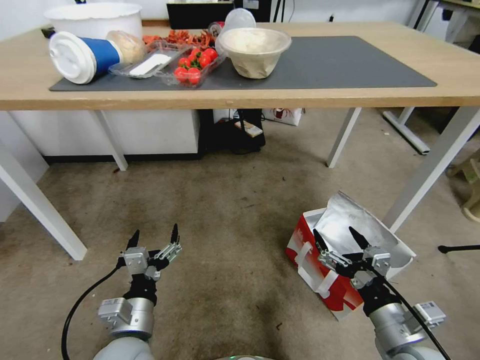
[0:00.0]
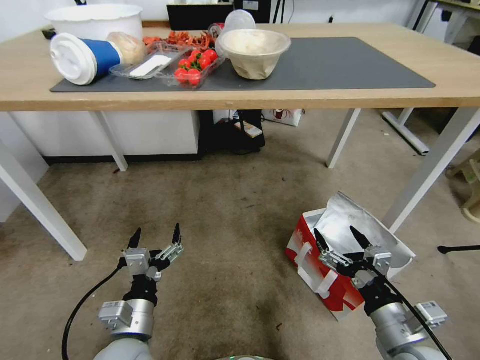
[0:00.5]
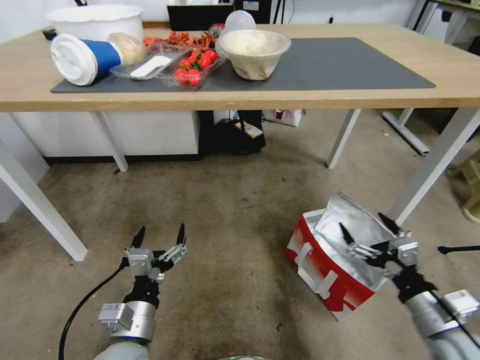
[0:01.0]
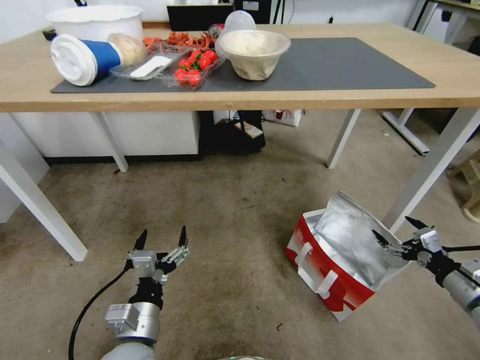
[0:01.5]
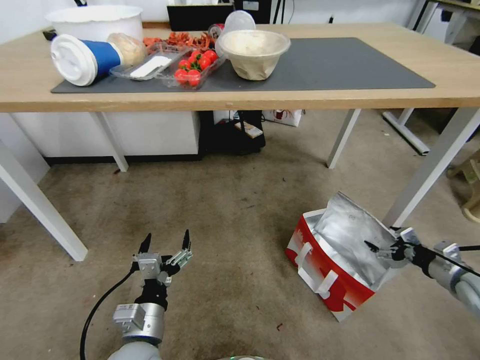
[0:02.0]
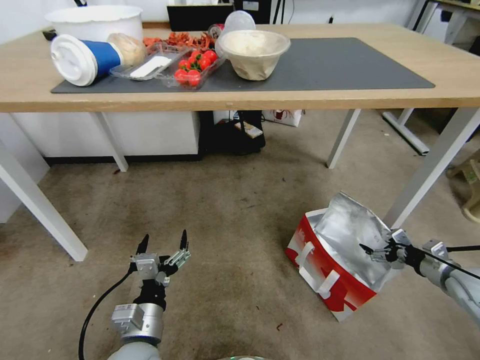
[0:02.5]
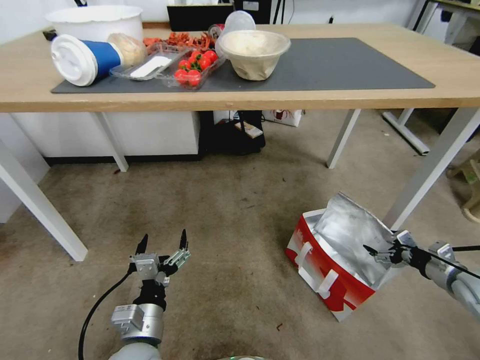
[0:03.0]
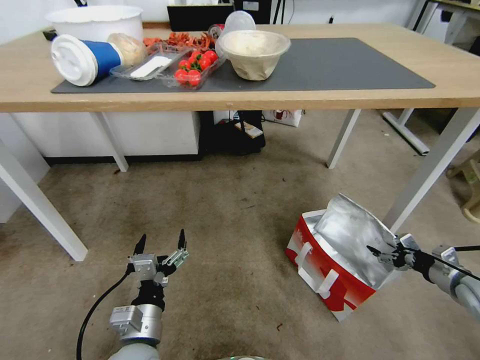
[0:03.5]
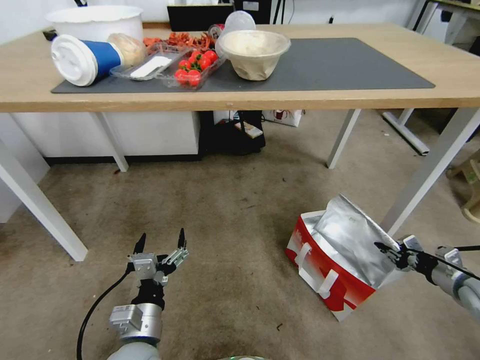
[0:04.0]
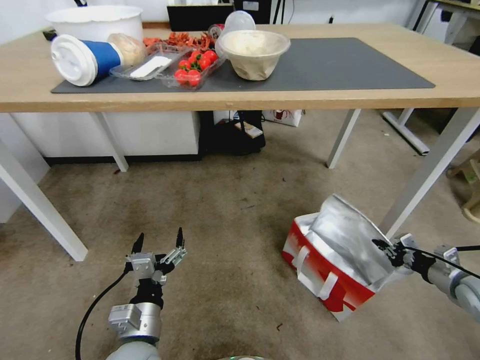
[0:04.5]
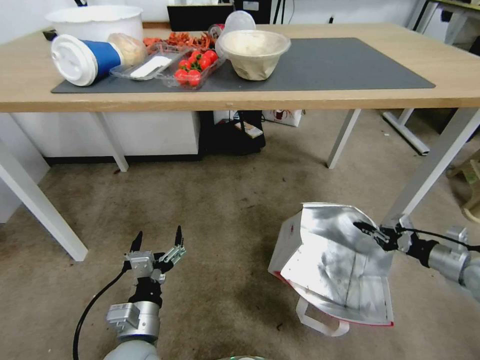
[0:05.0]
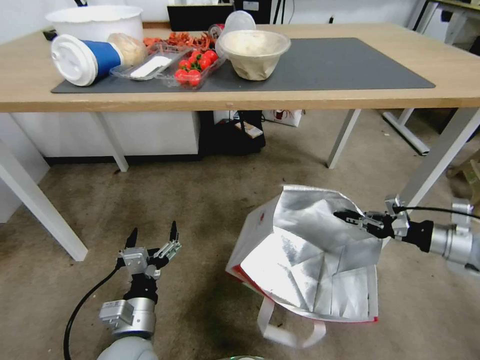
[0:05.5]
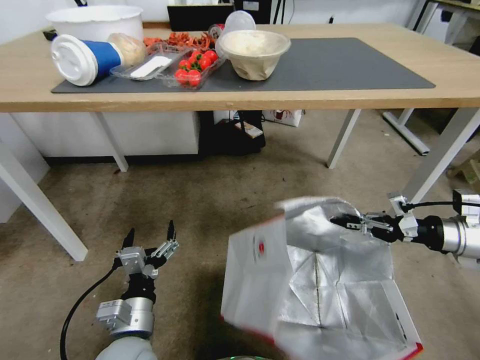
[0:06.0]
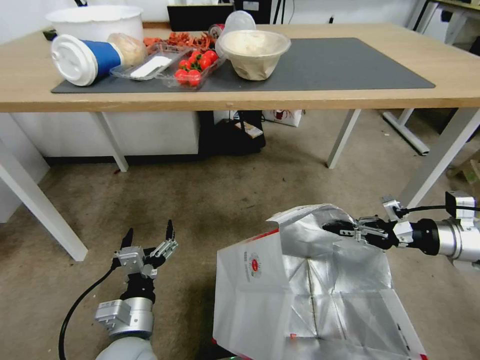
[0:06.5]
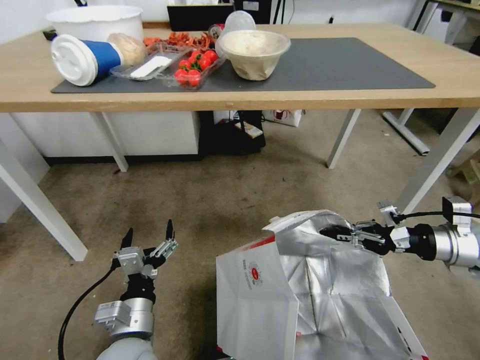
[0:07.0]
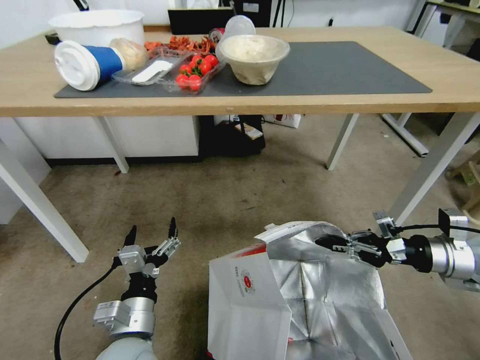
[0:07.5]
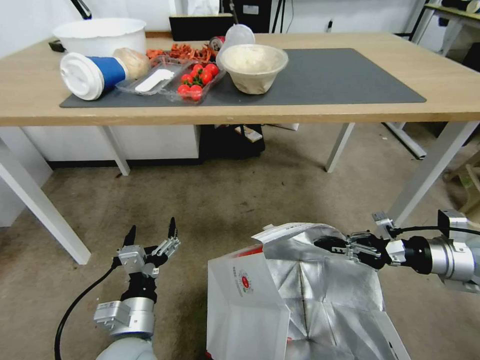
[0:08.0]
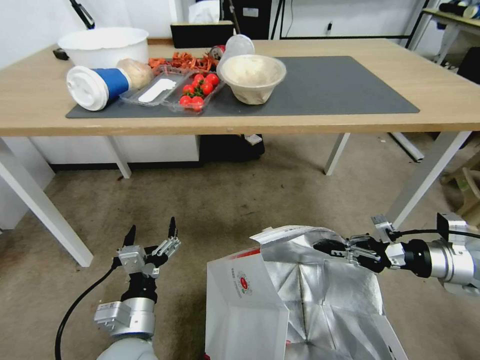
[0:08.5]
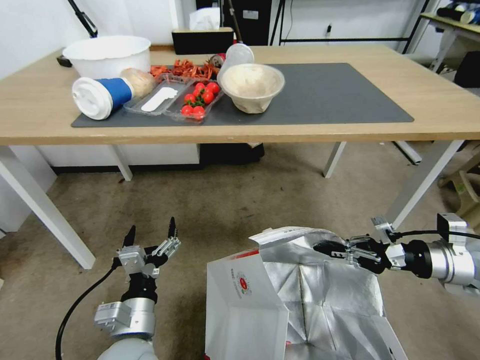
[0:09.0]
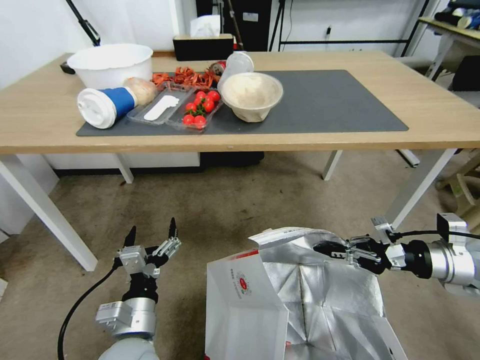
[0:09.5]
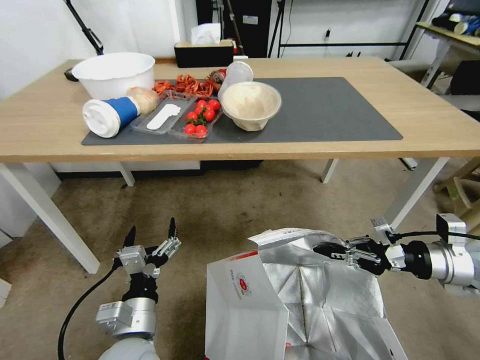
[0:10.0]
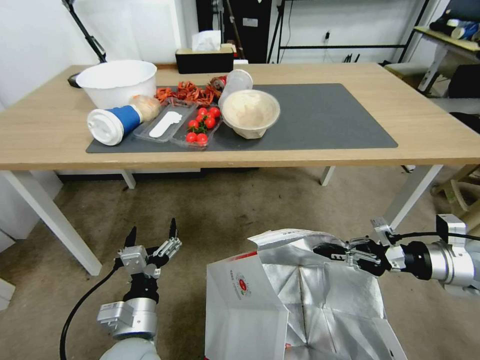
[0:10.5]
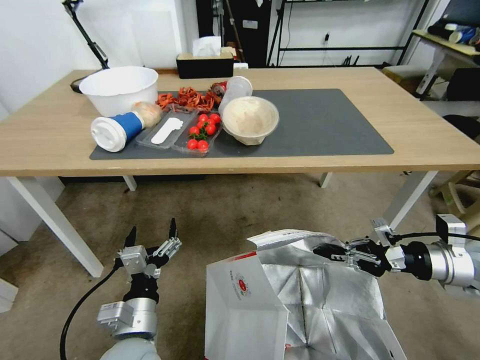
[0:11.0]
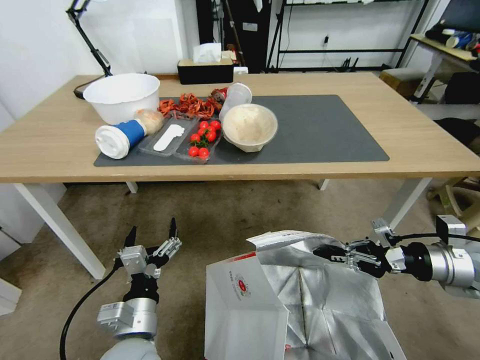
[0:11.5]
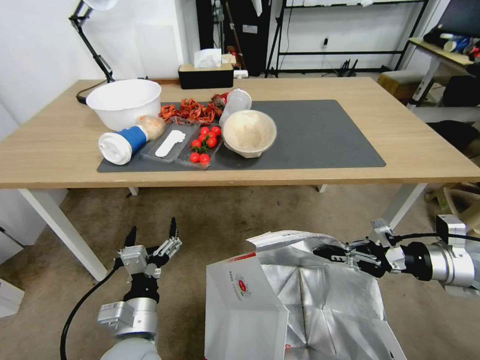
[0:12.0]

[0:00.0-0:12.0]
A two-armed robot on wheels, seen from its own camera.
Task of the whole recording: Pick up the food delivery bag from the floor and place it on the table.
0:00.0 to 0:02.0: The right gripper shifts about 30 cm to the right and forward.
0:02.0 to 0:04.0: The right gripper closes its fingers.
0:04.0 to 0:06.0: The right gripper moves upward, about 15 cm.
0:06.0 to 0:08.0: The right gripper ends up about 5 cm from where it was.

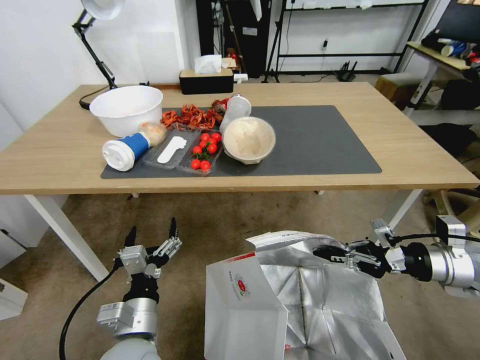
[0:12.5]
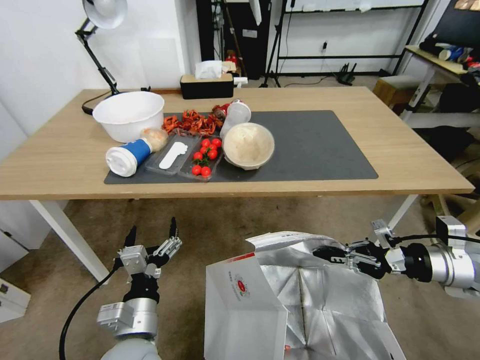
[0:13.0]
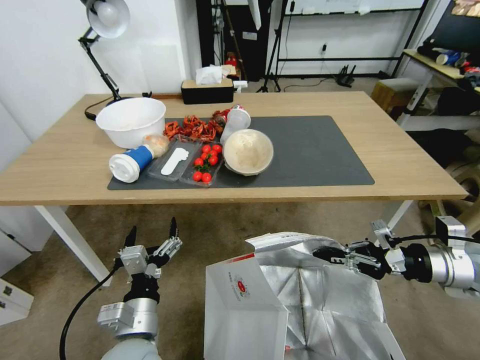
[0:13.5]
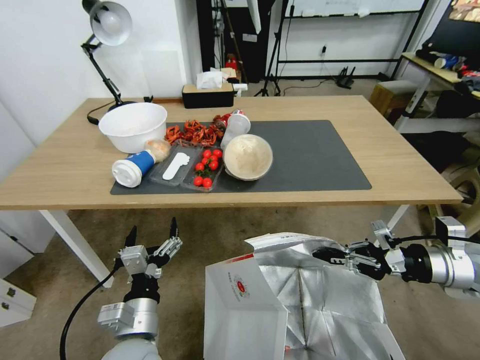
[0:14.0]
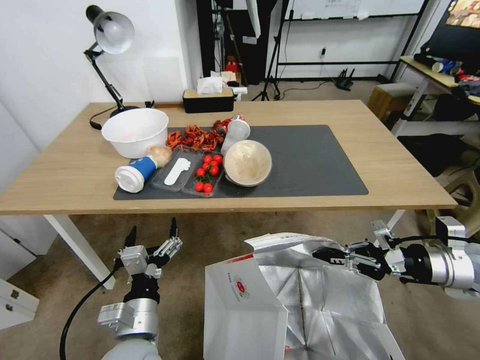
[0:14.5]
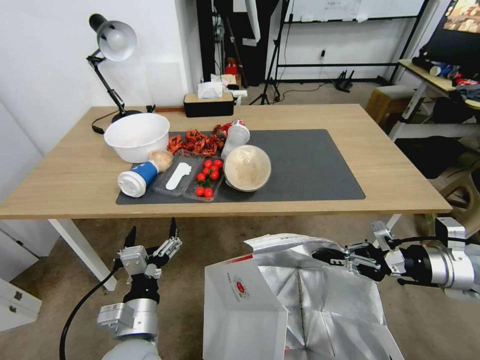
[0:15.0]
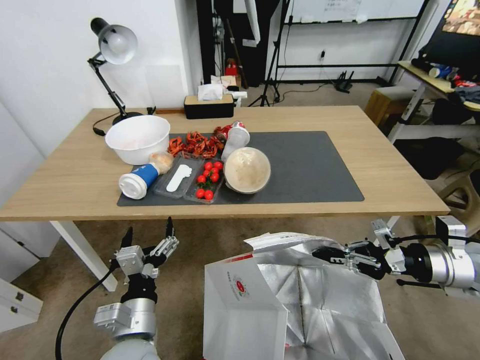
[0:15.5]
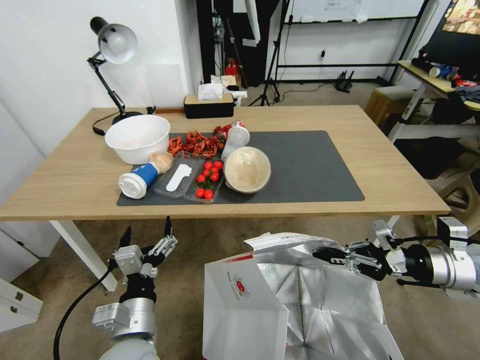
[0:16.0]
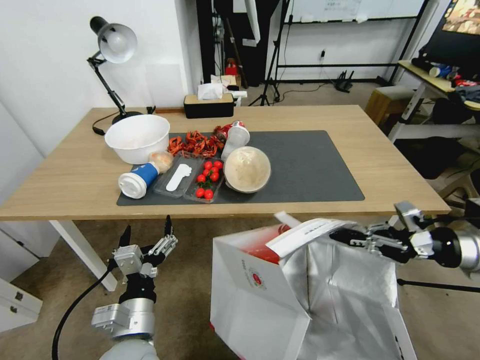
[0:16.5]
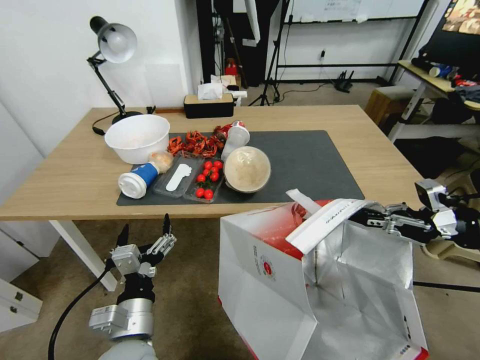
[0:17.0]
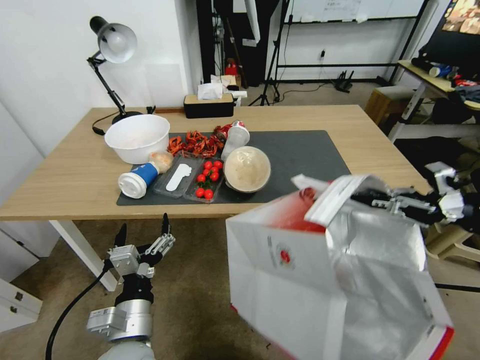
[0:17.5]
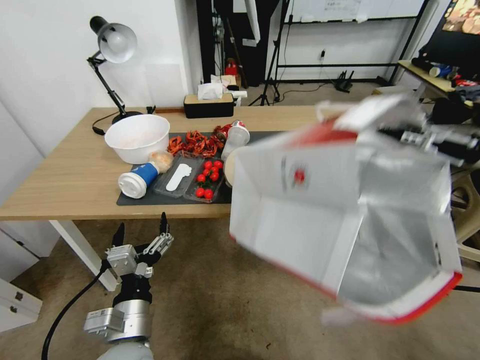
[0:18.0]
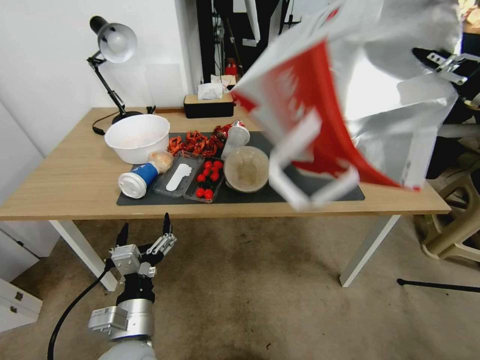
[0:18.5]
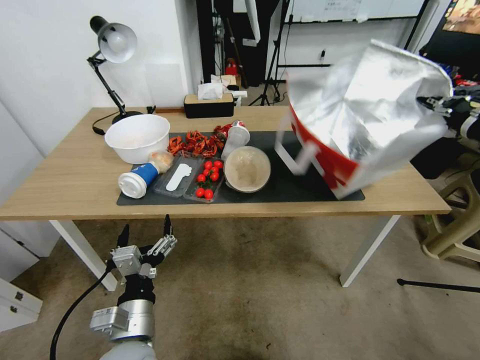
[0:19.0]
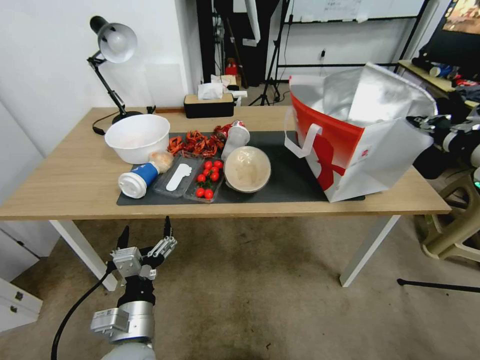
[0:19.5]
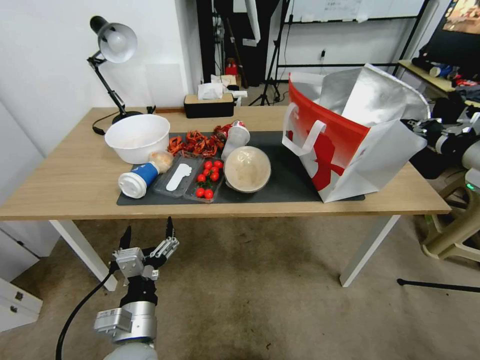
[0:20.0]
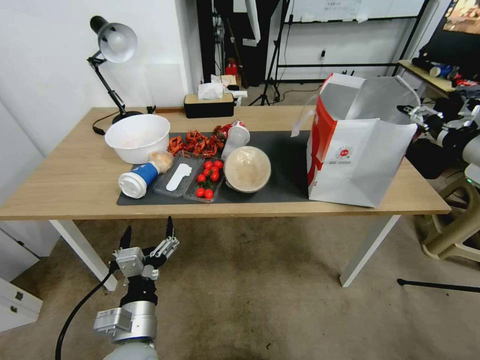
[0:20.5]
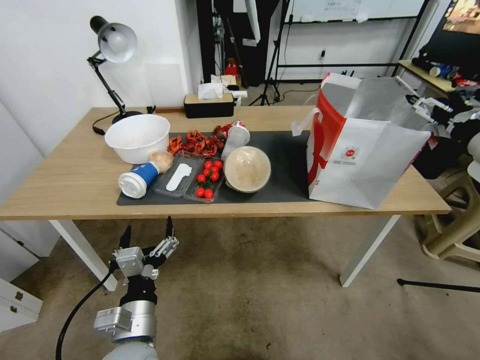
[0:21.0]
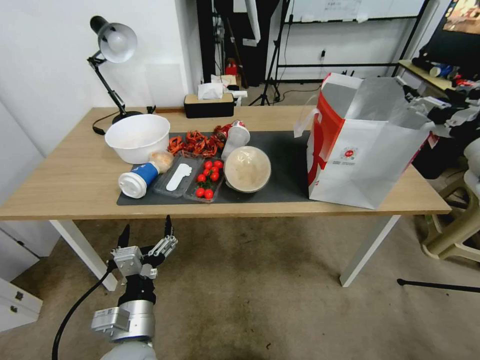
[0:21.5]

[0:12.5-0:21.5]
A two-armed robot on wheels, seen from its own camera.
Task of the whole recording: Pick up the food delivery bag from the floor and place it on the table.
0:14.5 to 0:17.0: The right gripper heads upward, covering some 5 cm.
0:17.0 to 0:19.5: The right gripper heads upward, covering some 10 cm.
0:19.5 to 0:21.5: The right gripper opens.

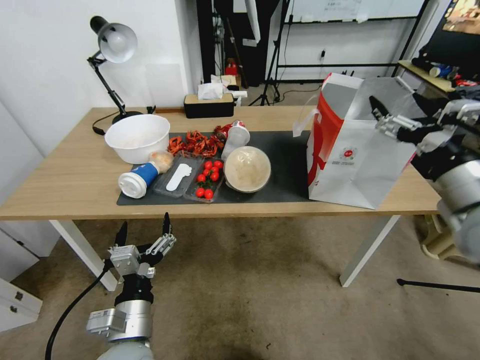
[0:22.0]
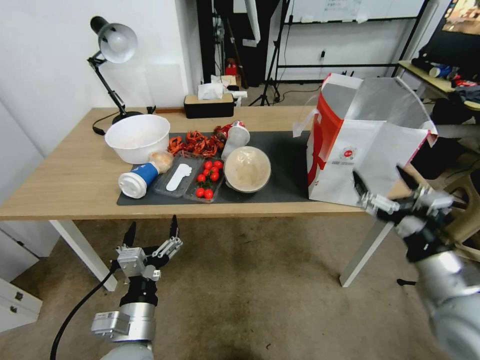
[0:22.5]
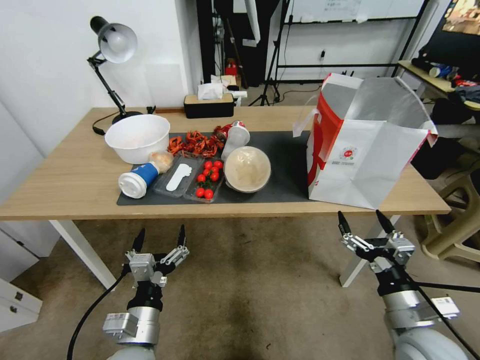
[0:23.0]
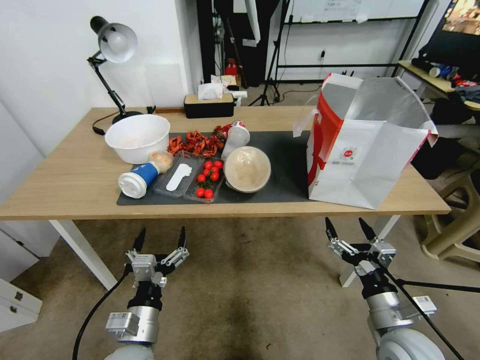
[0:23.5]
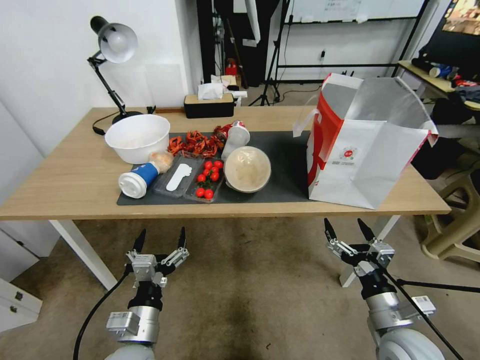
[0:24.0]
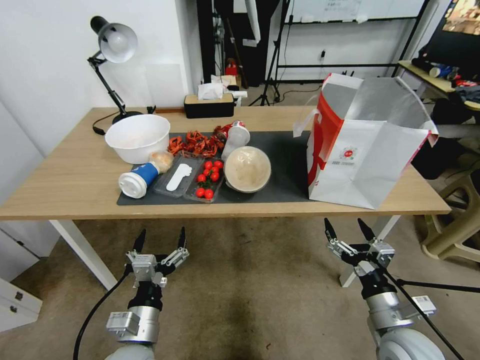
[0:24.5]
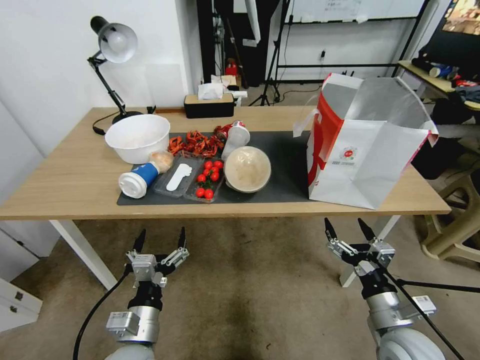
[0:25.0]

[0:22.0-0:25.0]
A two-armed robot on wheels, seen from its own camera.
Task of the whole recording: Pick up the food delivery bag from the floor and place it on the table.
0:22.0 to 0:23.5: The right gripper goes about 25 cm downward.
0:23.5 to 0:25.0: The two grippers keep their place.
